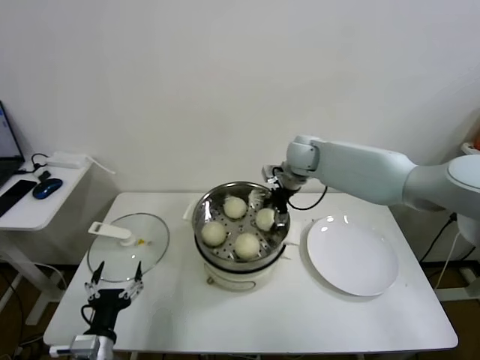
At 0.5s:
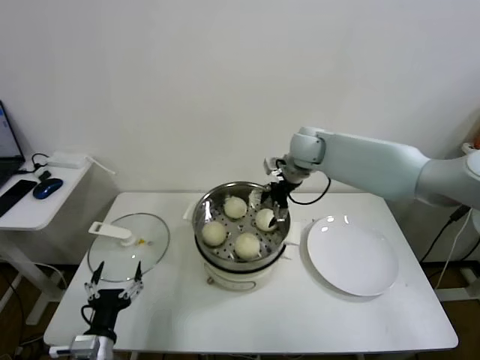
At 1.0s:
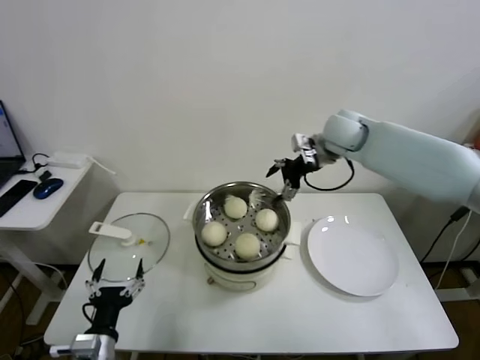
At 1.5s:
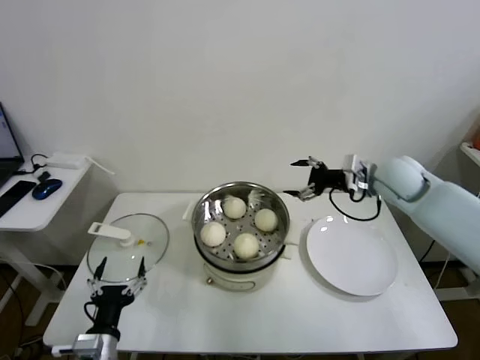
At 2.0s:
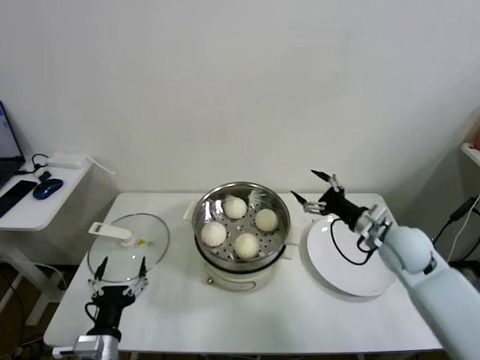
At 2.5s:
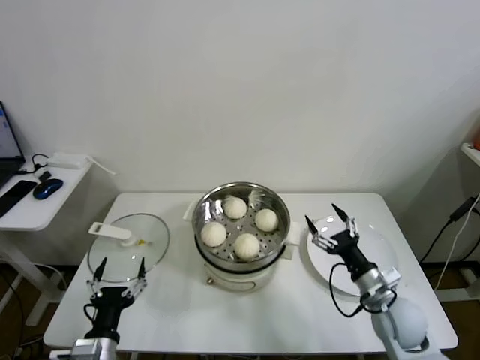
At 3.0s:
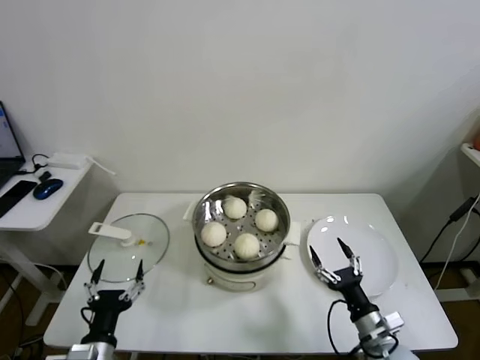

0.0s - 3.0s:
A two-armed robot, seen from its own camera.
Task of the whole recording: take steamed baozi put them in steamer.
0.0s - 1.5s: The right gripper is displaced to the right and backward by approximately 20 cm.
1.5s - 3.0s: The right gripper goes approximately 40 cm backward and downward.

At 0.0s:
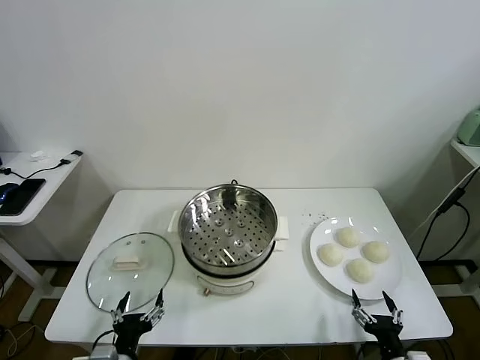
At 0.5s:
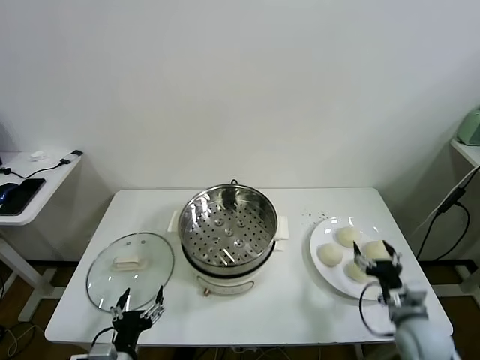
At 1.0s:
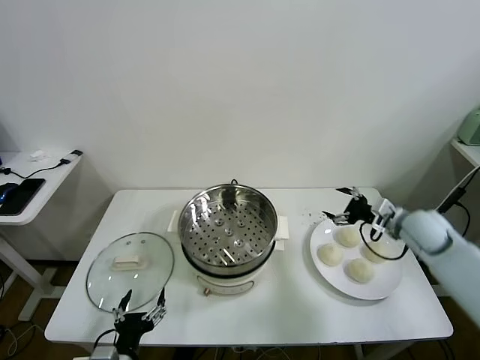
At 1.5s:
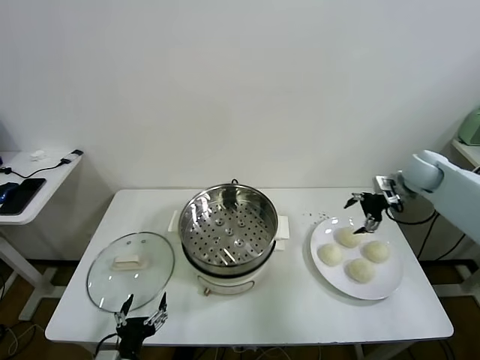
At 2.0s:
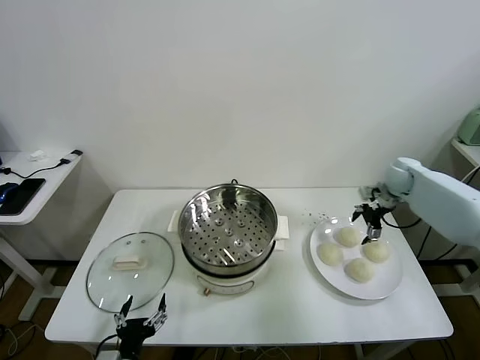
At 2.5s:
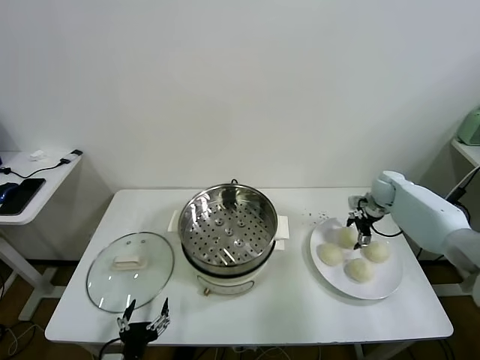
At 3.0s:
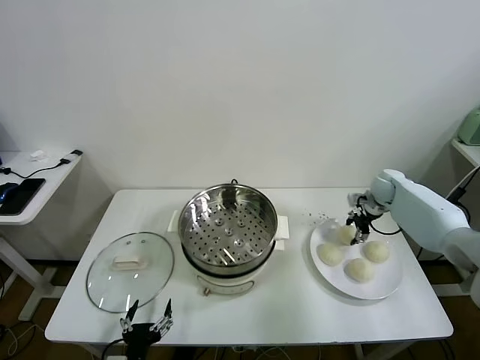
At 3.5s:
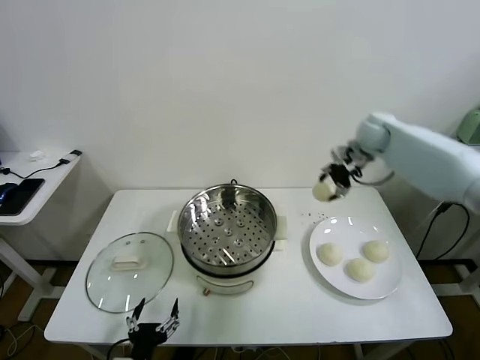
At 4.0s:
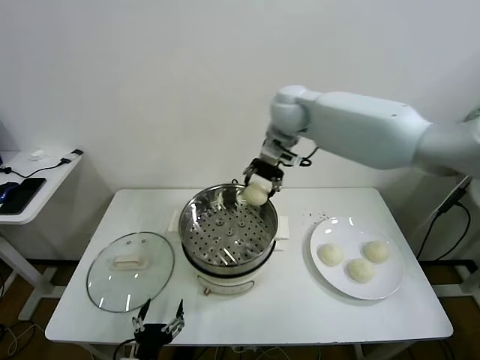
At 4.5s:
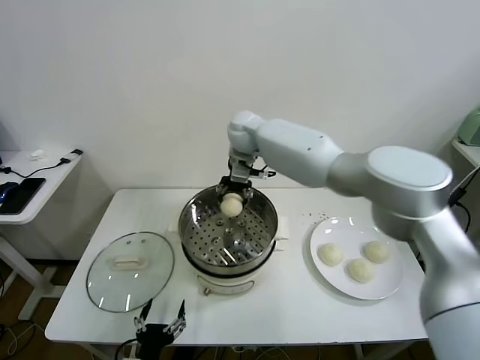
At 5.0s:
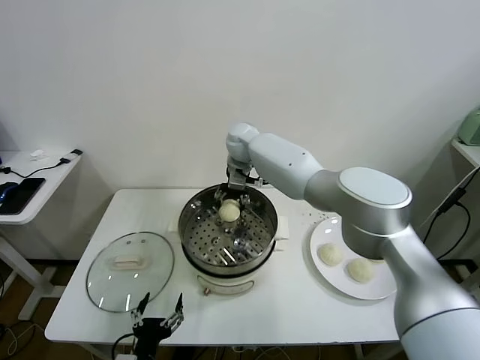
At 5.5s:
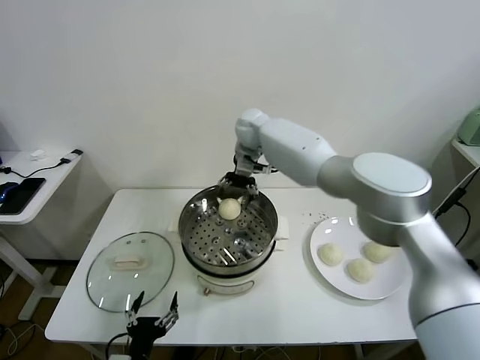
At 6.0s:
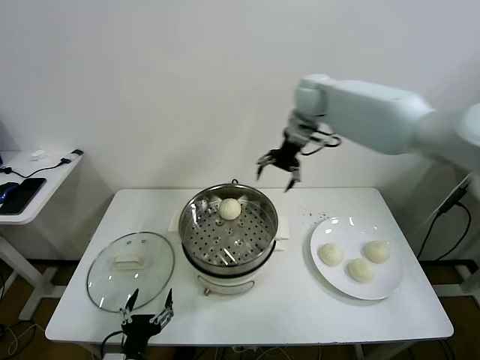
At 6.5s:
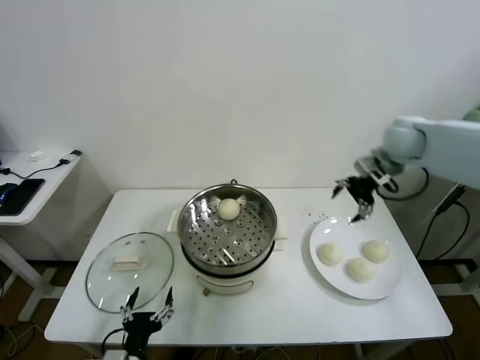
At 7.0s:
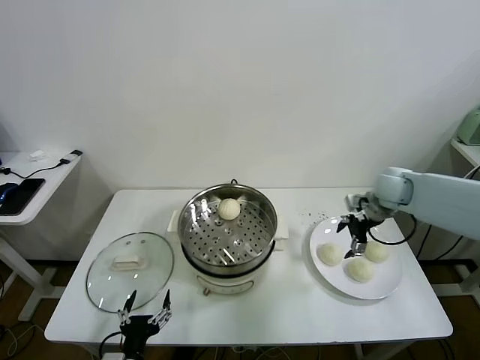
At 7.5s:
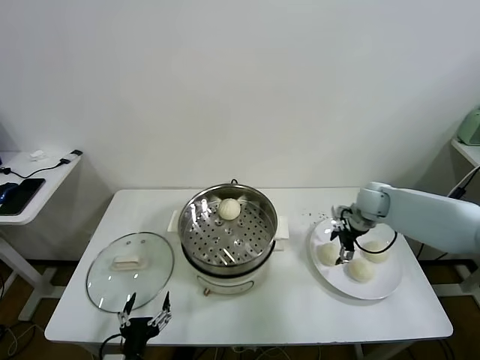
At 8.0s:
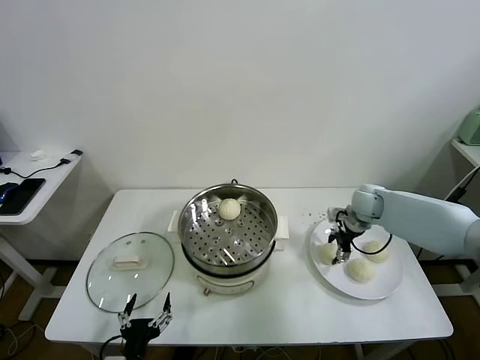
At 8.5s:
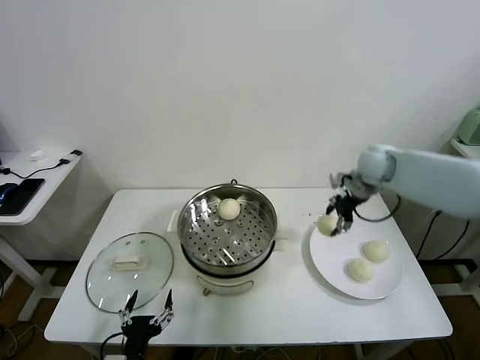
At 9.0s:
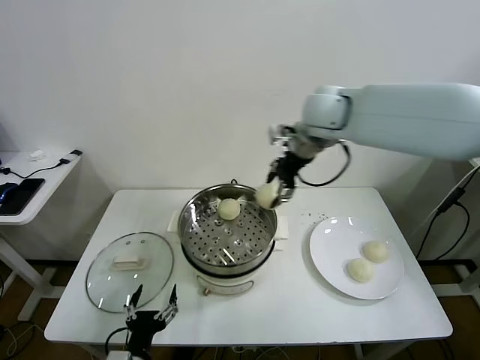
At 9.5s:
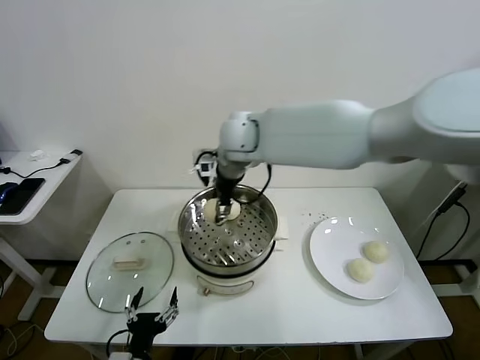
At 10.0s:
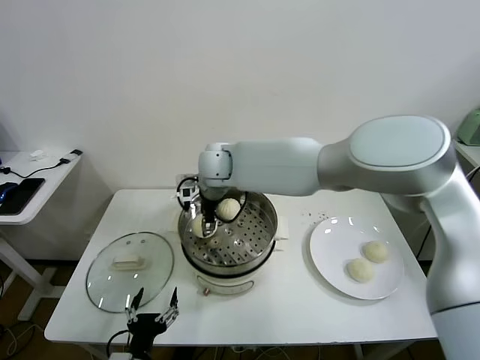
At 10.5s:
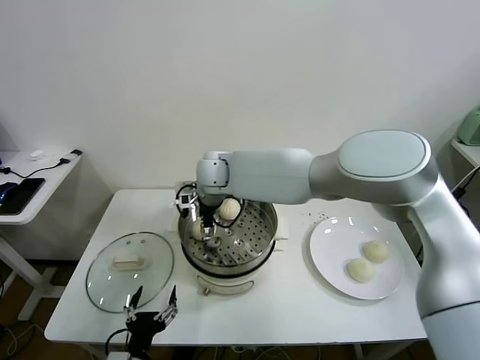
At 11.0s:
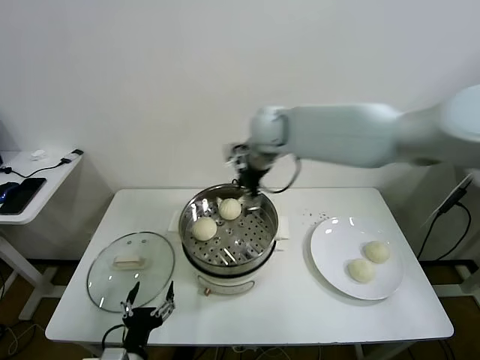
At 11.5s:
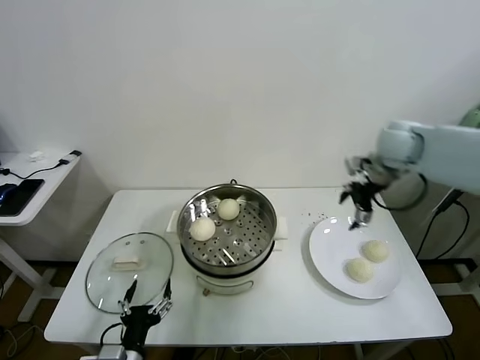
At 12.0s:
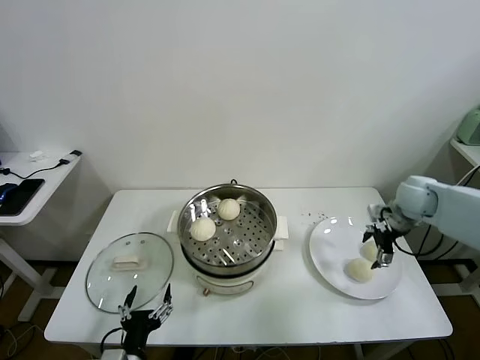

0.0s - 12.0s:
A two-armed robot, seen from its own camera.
Task of the whole recording: take steamed baozi put them in steamer.
Step, 0.0s - 2.5s: Grasp the baozi in the plate with right gripper.
Step, 3.0s - 5.0s: Place the baozi on the steamer with right gripper.
Step, 5.5s - 7.5s: Grasp the baozi in the plate with right gripper.
Step, 8.0s - 10.5s: Place the baozi on the steamer with right gripper.
2.0s - 4.0s: The right gripper is displaced to the left and upward by some 40 cm, and closes.
4.0s - 6.0s: The right gripper heads to the right, covering roughly 15 cm, and opens.
6.0s - 8.0s: The right gripper moves downward and to the right, about 30 cm, and closes its fingers.
8.0s - 10.0s: The right gripper travels to the left by approximately 40 cm.
10.0s - 12.0s: The right gripper moves to the right, approximately 50 cm, and opens its fingers.

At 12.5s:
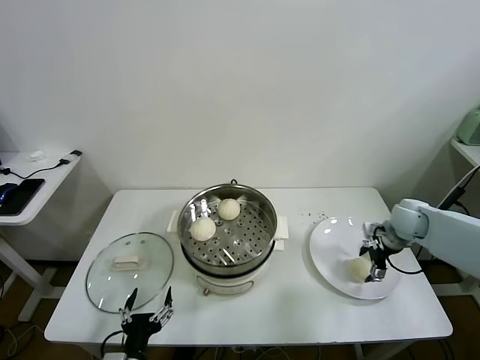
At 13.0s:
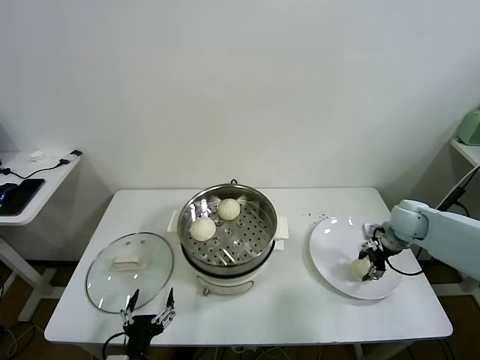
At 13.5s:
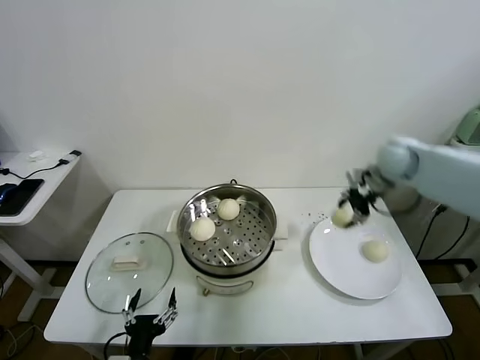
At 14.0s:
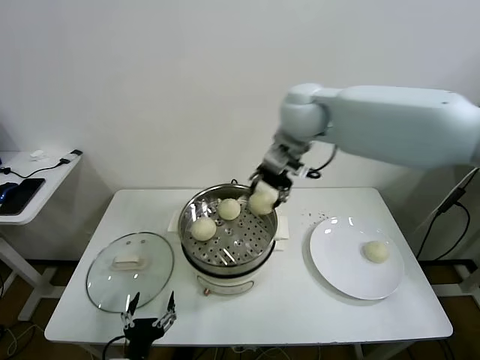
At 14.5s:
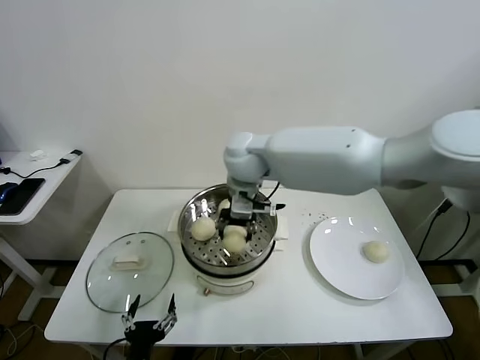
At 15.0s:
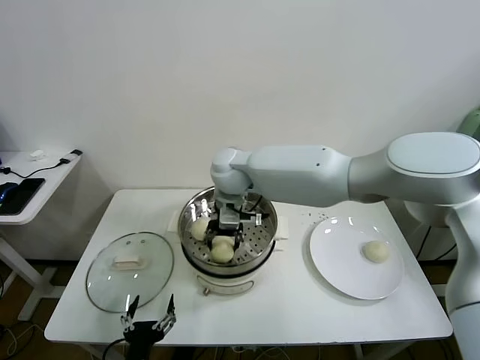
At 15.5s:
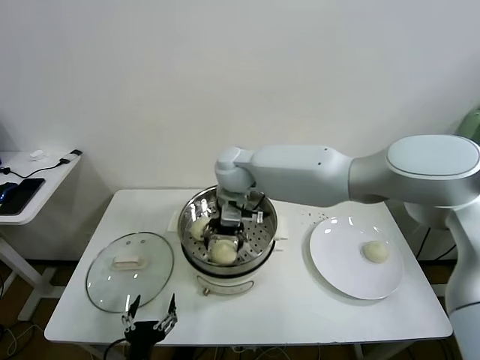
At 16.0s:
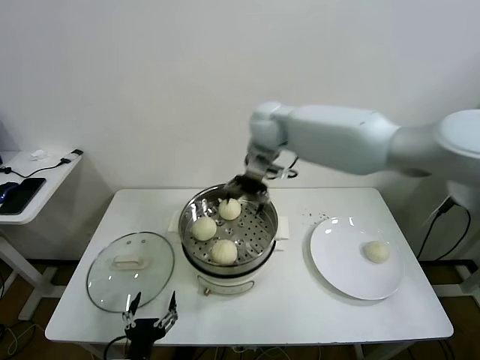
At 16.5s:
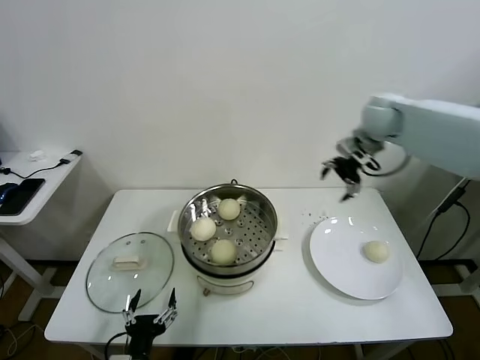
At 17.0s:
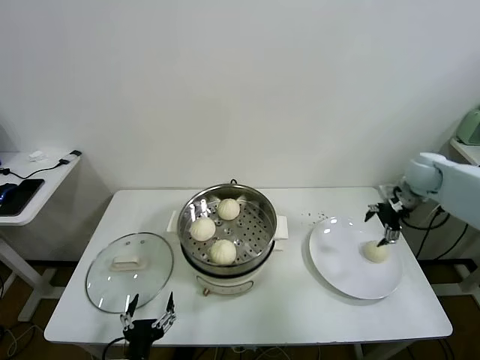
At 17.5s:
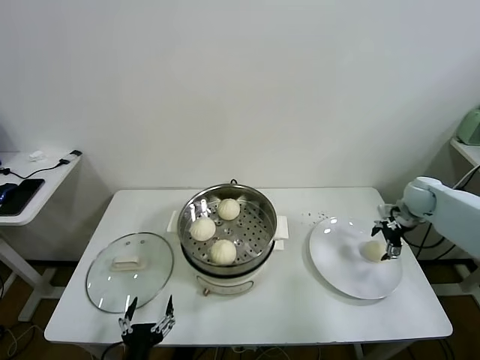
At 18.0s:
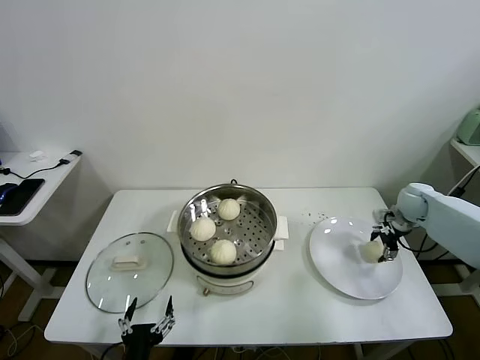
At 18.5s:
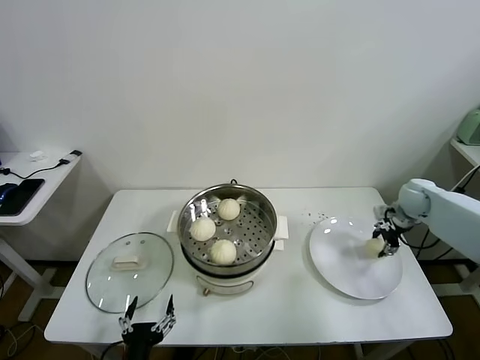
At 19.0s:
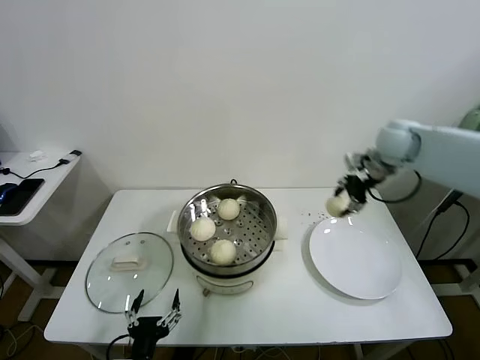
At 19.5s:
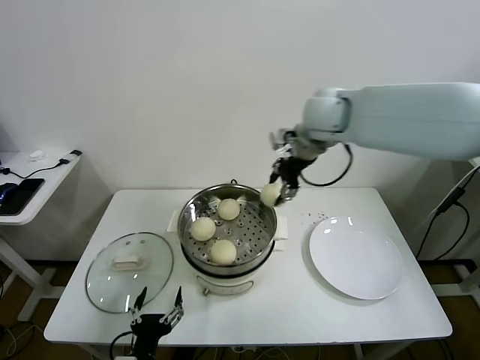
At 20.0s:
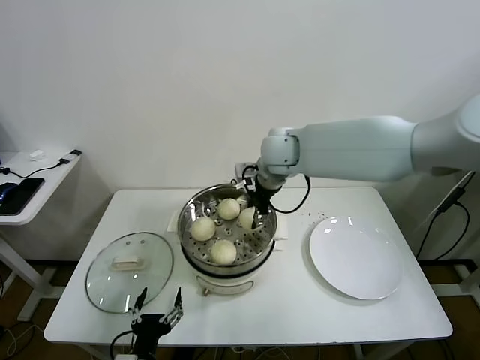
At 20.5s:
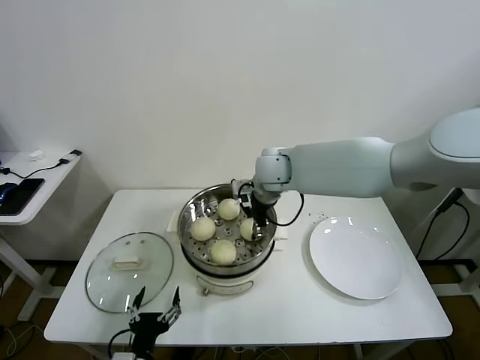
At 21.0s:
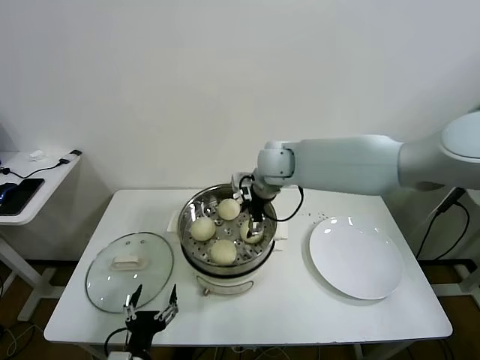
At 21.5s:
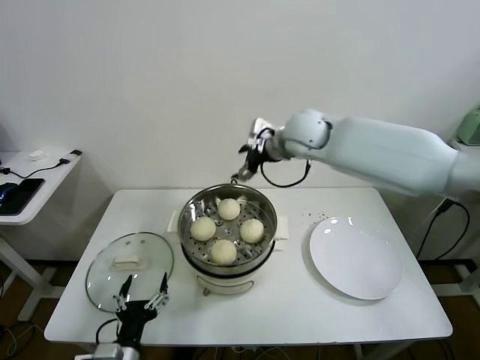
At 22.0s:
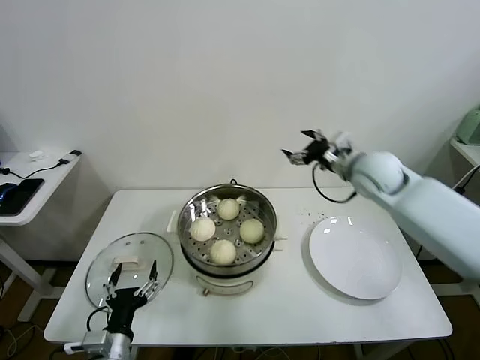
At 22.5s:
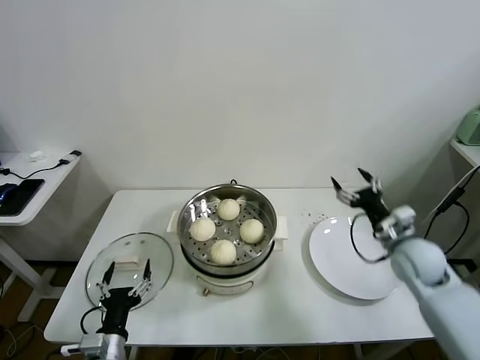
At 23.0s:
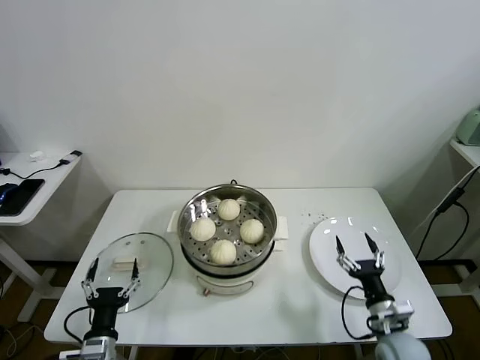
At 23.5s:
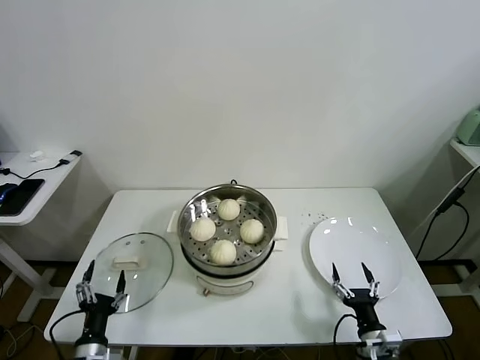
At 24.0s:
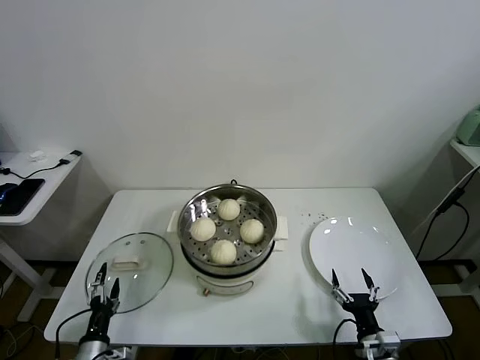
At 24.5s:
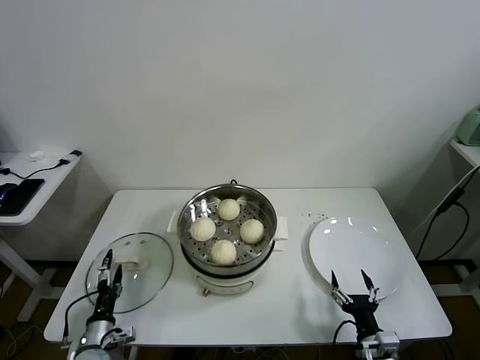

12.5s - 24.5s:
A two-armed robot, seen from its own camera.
Task of the whole recording: take steamed baozi put them in steamer.
Step, 13.0s - 15.5s: Place the baozi on the steamer with right gripper.
Step, 16.0s - 18.0s: Grasp the baozi in the plate with right gripper.
Step, 18.5s - 20.5s: Place the baozi on the steamer with right gripper.
12.5s - 14.5s: The right gripper moves to the left and upward, roughly 40 cm, and closes its fingers.
14.5s - 16.5s: The right gripper moves to the right, roughly 30 cm, and opens its fingers.
16.5s - 18.5s: The right gripper heads downward and to the right, covering approximately 25 cm, and closes its fingers.
18.5s - 20.5s: The right gripper heads to the left, covering about 40 cm.
20.5s - 22.5s: The right gripper is displaced to the right, backward and downward by about 35 cm, and opens its fingers, while the left gripper travels to the left by about 5 cm.
22.5s - 24.5s: The right gripper goes approximately 25 cm backward and downward. Meanwhile the left gripper shifts approximately 15 cm downward and to the left.
